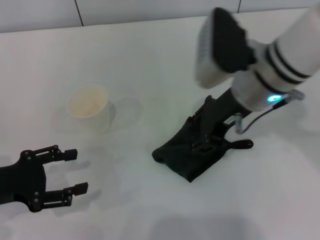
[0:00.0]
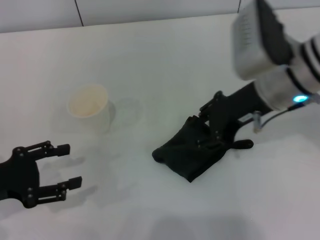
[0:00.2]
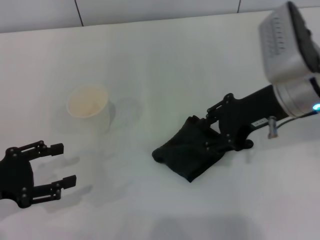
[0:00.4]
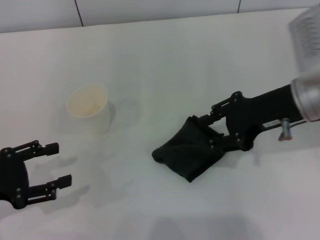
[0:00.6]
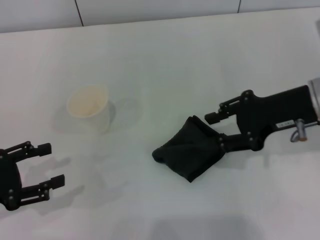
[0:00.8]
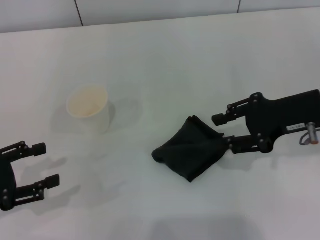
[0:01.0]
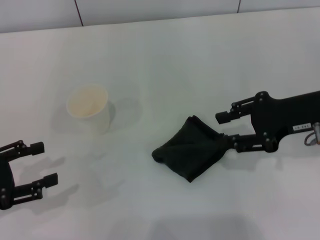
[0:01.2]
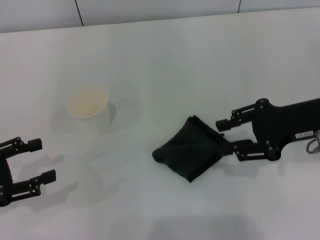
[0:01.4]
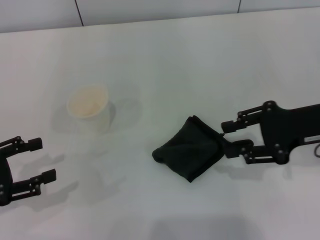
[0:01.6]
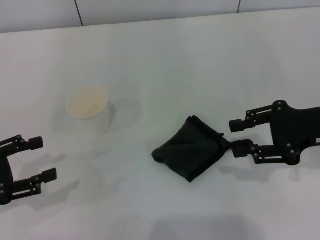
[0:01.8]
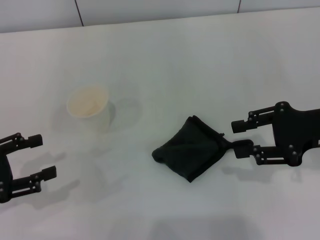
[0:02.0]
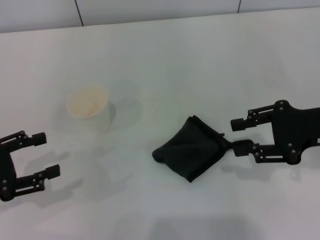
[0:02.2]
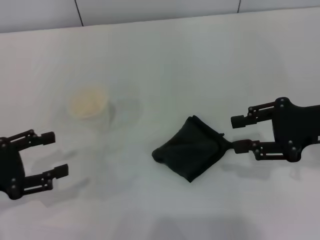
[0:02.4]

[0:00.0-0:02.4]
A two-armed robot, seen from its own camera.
0:00.0 to 0:01.2: The right gripper moves to the right, roughly 15 cm.
0:01.2 to 0:02.4: The grippers make only small movements.
